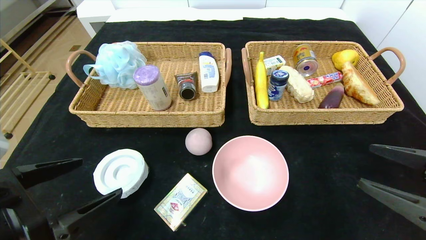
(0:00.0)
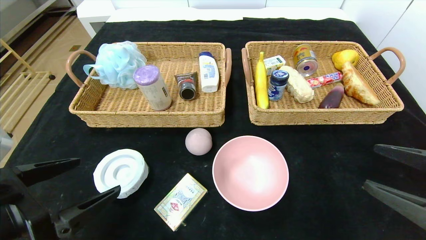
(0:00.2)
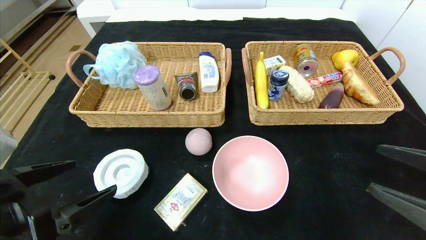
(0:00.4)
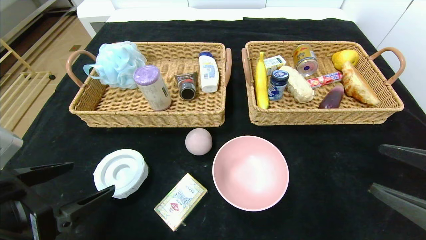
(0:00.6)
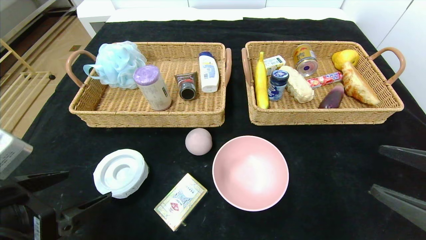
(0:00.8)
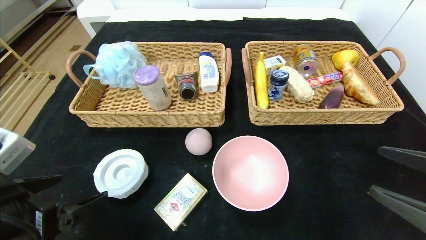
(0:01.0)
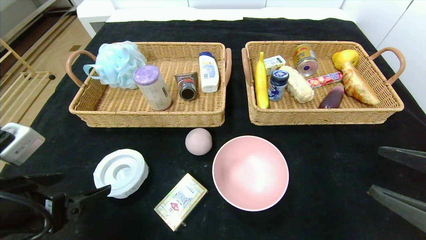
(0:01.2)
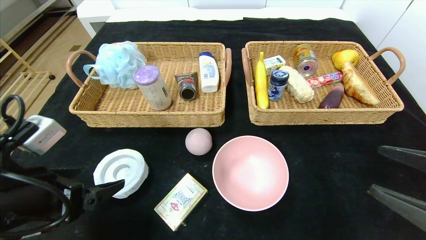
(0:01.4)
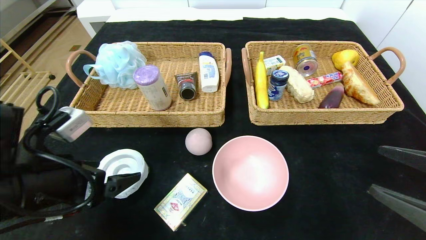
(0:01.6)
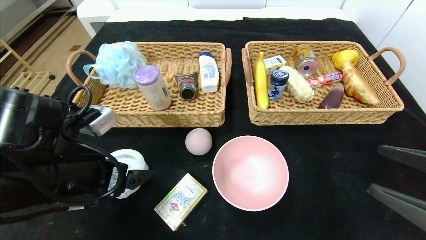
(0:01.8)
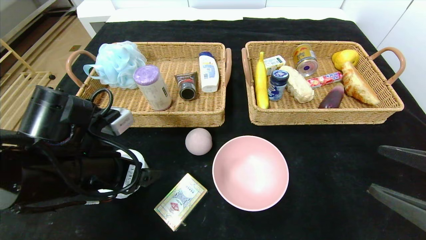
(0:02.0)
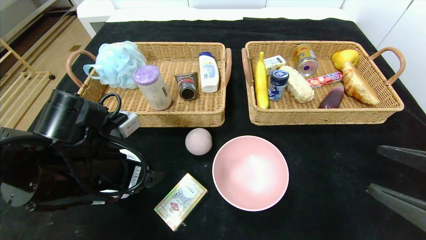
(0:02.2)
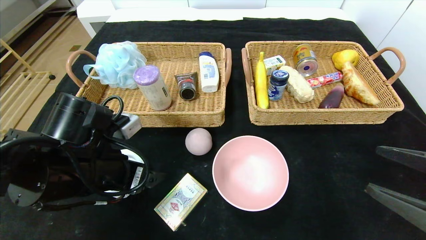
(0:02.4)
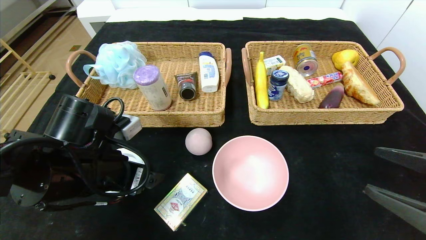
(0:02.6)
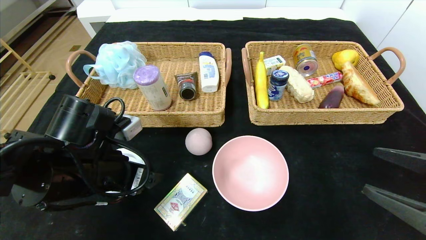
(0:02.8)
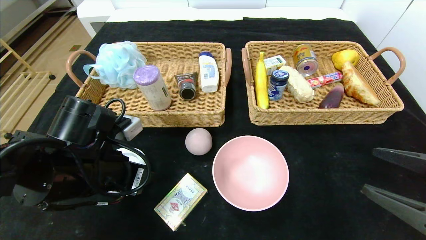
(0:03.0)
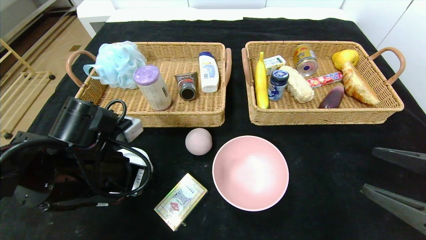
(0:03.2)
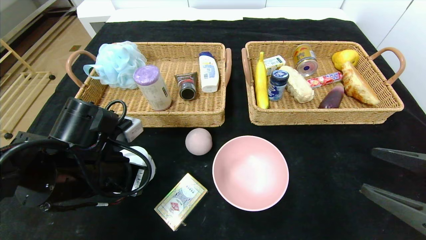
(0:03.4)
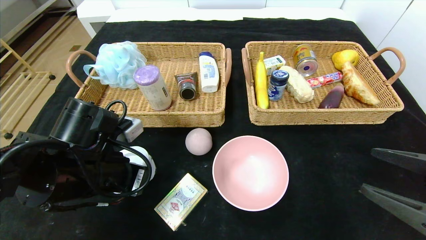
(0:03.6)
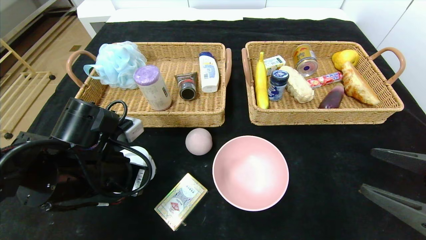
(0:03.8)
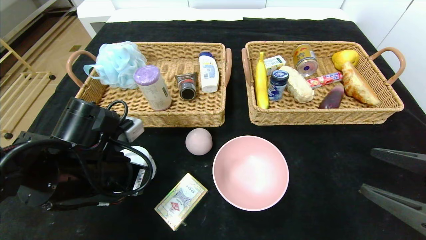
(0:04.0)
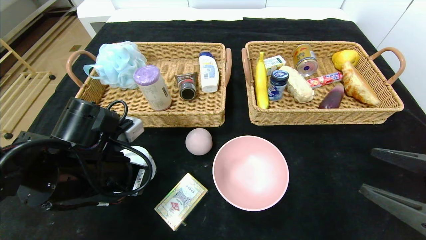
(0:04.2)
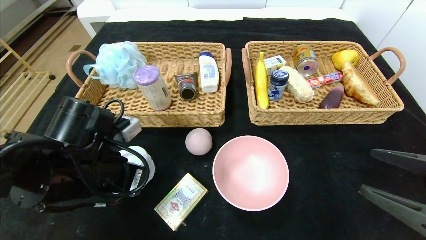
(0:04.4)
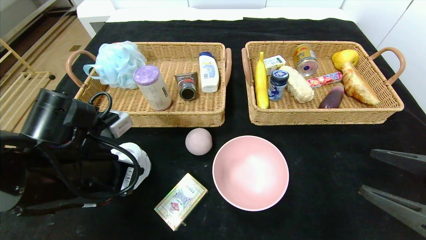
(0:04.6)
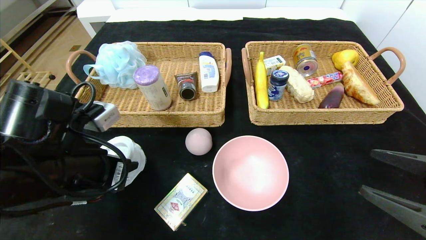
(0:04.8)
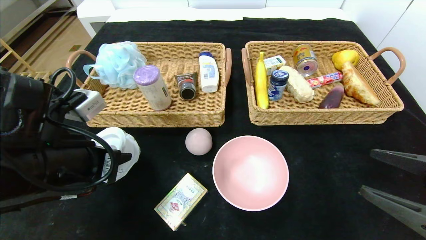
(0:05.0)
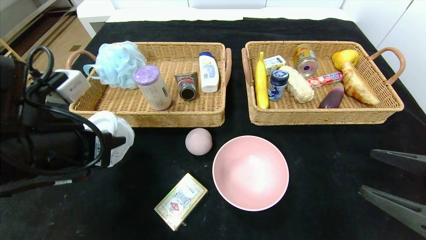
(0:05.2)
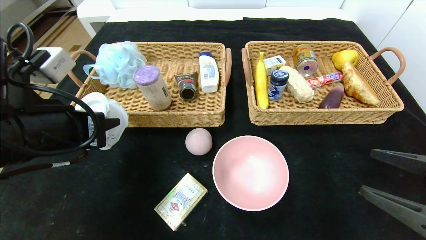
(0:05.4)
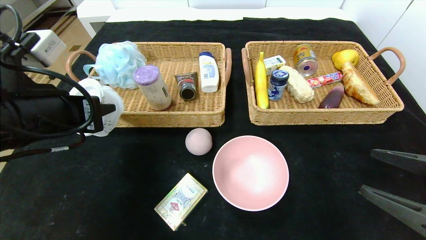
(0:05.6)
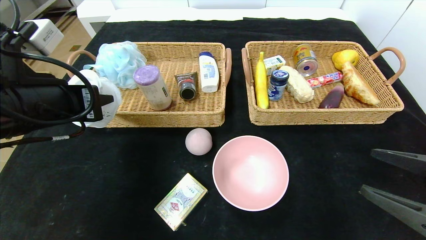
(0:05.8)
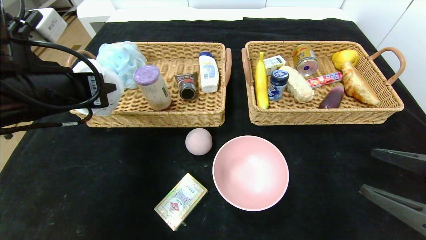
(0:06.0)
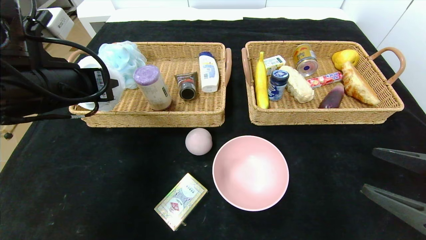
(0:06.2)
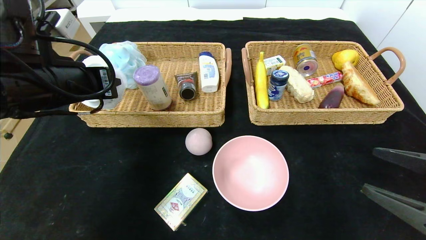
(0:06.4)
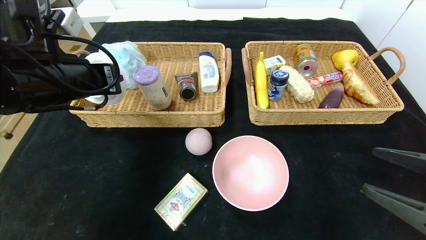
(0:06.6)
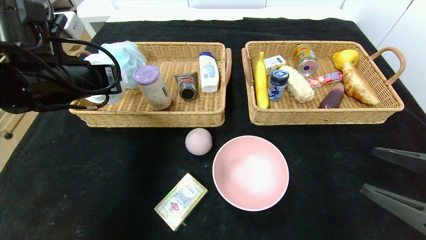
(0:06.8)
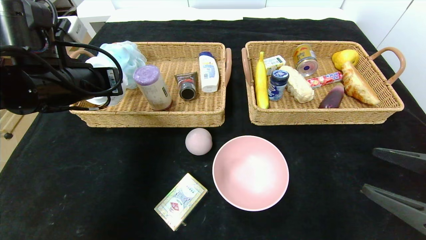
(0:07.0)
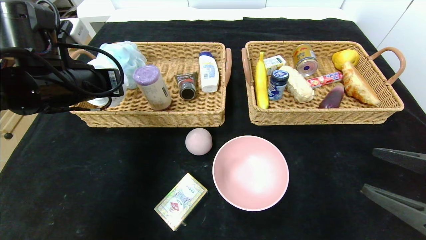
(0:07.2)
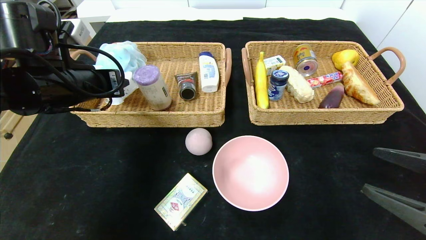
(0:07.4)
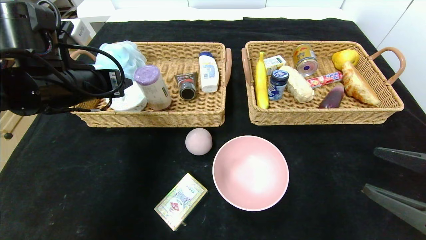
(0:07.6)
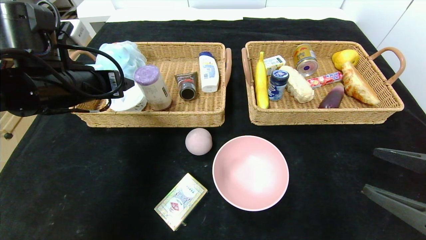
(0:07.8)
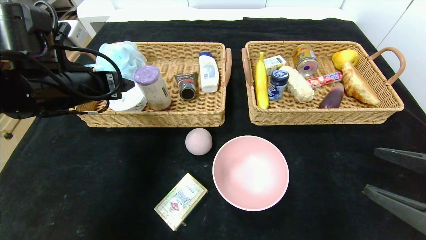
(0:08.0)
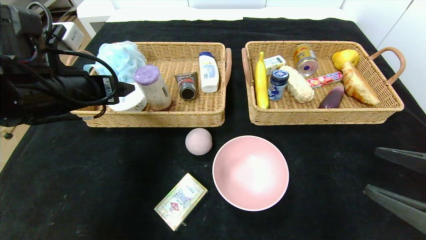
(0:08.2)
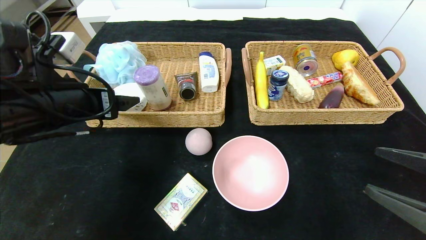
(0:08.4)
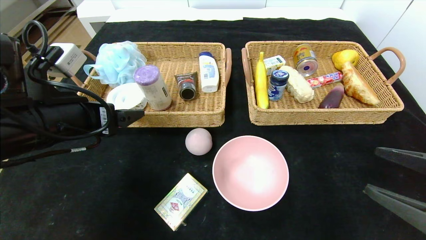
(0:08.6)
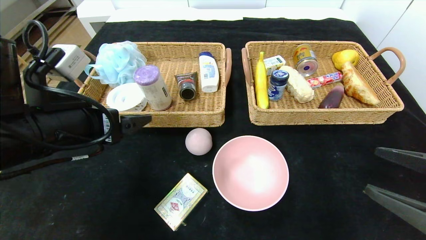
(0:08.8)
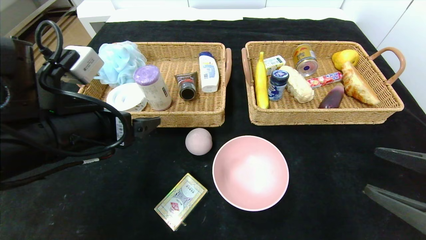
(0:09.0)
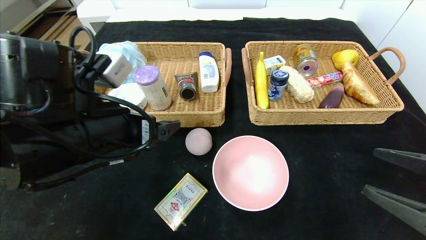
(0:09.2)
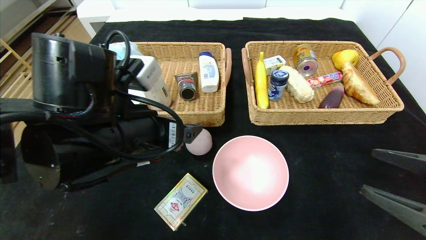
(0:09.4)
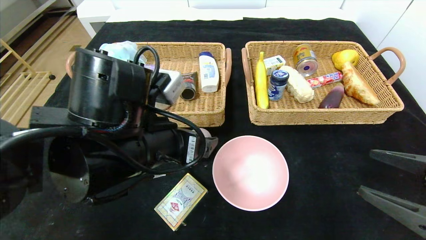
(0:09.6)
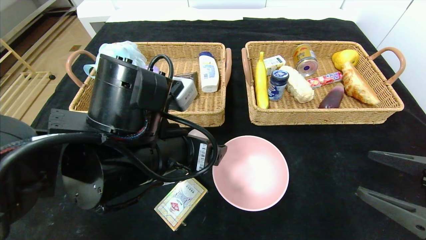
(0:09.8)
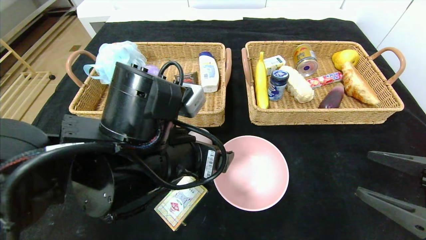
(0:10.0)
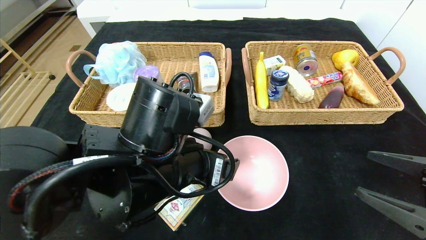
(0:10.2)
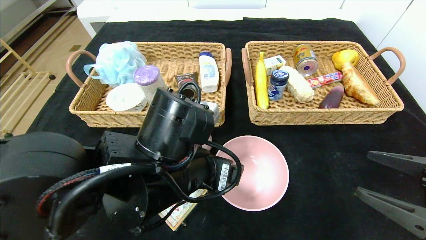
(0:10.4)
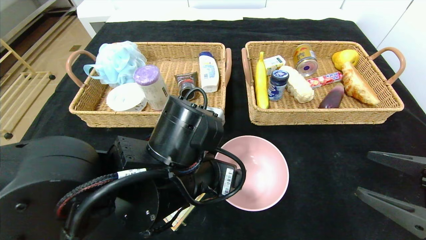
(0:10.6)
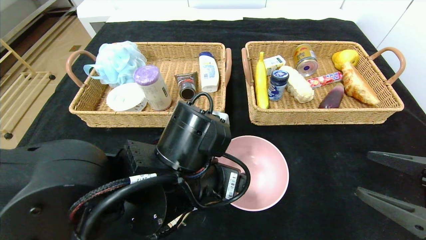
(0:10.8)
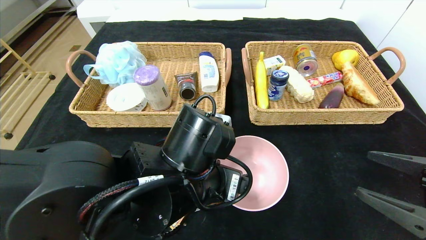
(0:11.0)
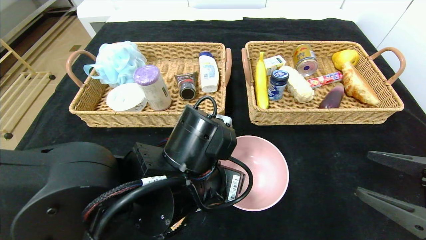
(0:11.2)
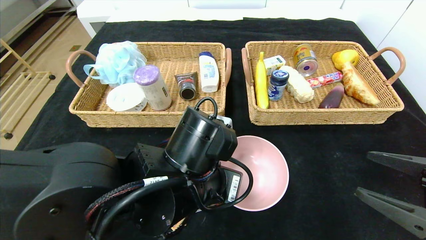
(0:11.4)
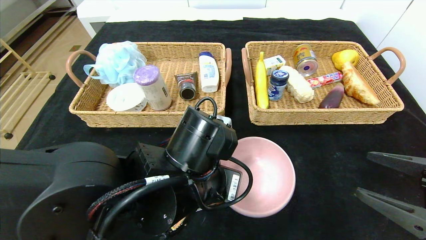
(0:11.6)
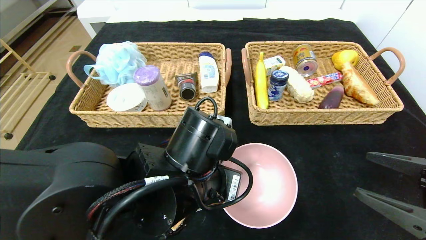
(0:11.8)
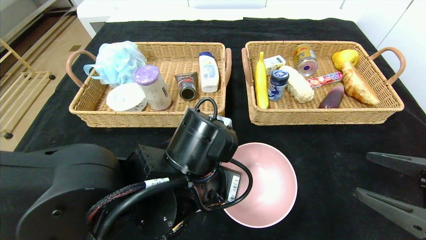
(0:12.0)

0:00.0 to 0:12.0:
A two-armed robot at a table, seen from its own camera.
Step, 0:00.0 to 0:07.6: Grasp the tape and put it in the left basket.
0:00.0 to 0:01.6: The left gripper goes roughly 5 cm forward.
0:01.6 to 0:03.0: The left gripper ends up some 5 cm from where it was, and closes.
0:03.0 to 0:04.4: The left gripper closes up.
0:04.4 to 0:06.0: The left gripper goes approximately 10 cm upward.
0:06.0 to 0:07.6: The left gripper heads forward, covering about 5 cm, and opens its fingers.
0:07.6 to 0:09.0: The left gripper travels backward by about 10 cm.
0:09.0 to 0:10.4: The left gripper heads to the right, covering roughly 15 cm.
0:10.4 to 0:12.0: The left gripper closes.

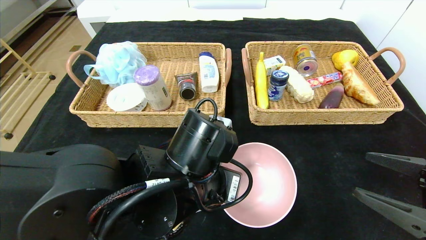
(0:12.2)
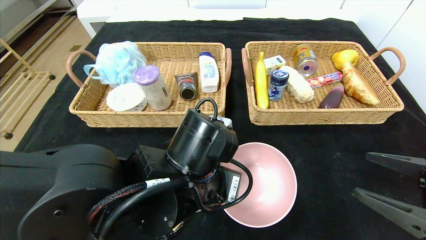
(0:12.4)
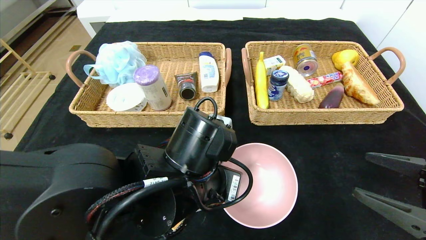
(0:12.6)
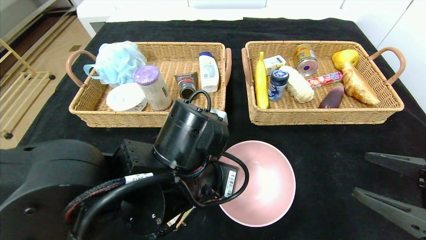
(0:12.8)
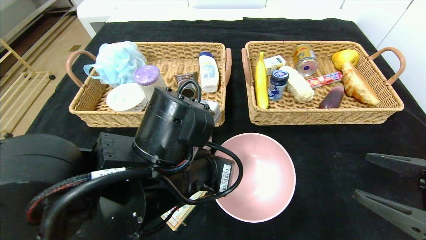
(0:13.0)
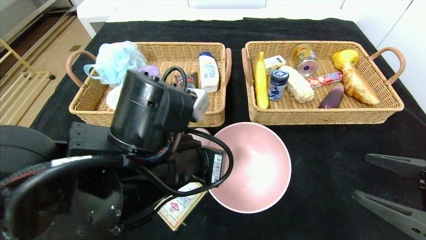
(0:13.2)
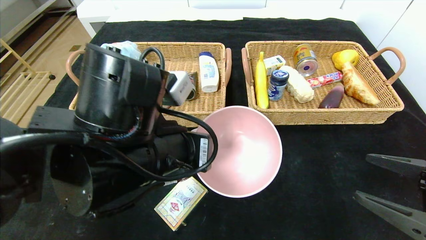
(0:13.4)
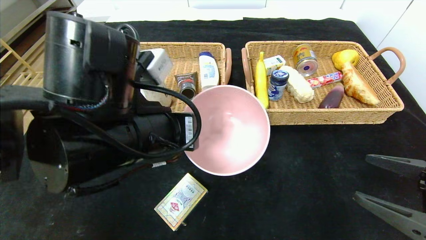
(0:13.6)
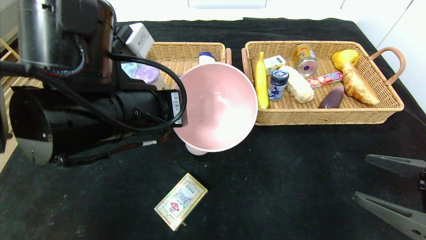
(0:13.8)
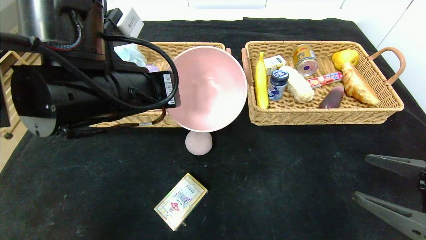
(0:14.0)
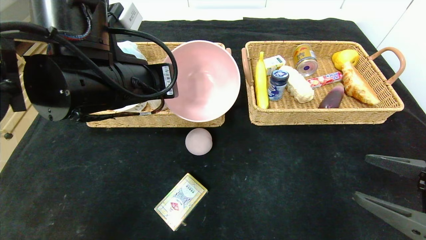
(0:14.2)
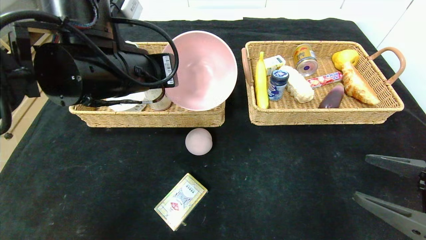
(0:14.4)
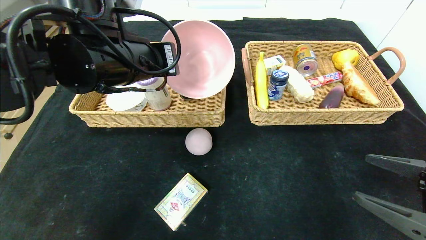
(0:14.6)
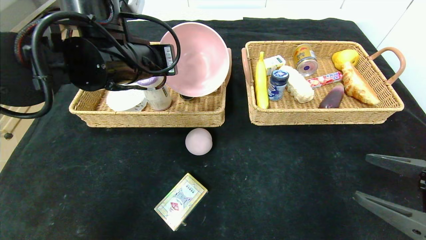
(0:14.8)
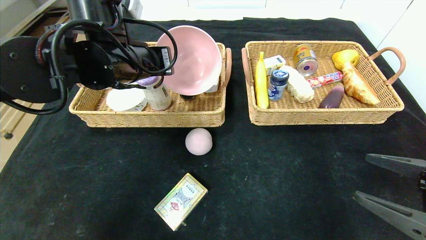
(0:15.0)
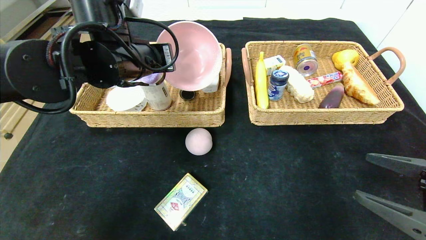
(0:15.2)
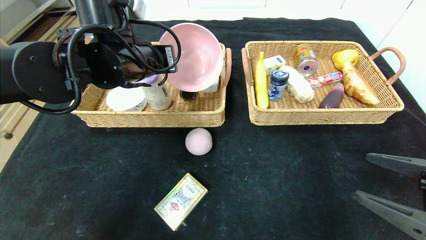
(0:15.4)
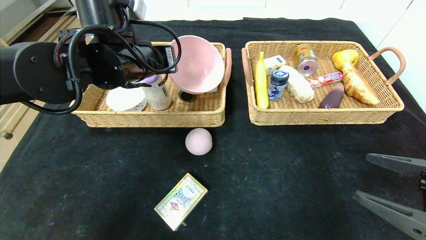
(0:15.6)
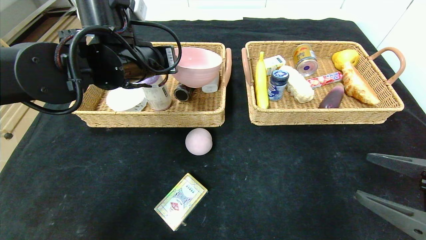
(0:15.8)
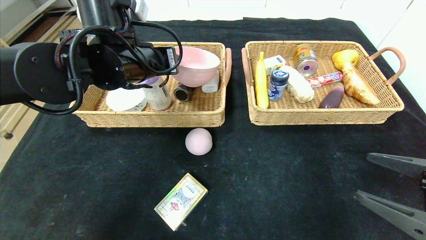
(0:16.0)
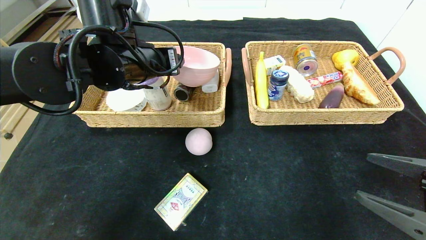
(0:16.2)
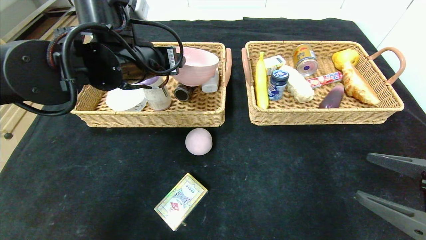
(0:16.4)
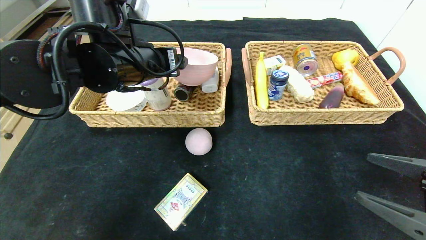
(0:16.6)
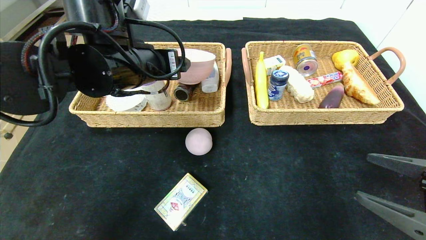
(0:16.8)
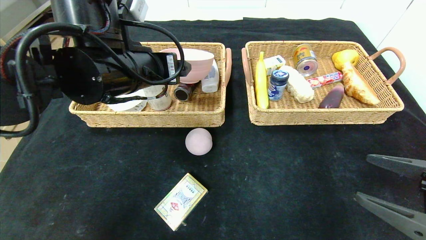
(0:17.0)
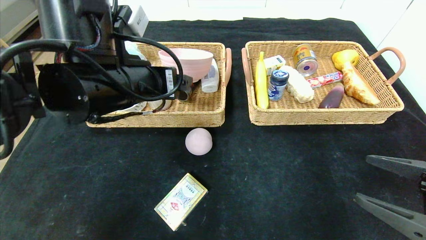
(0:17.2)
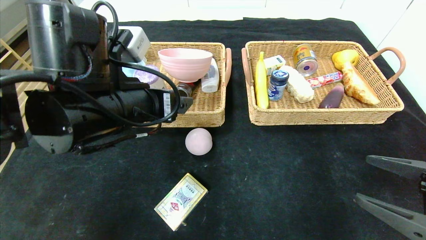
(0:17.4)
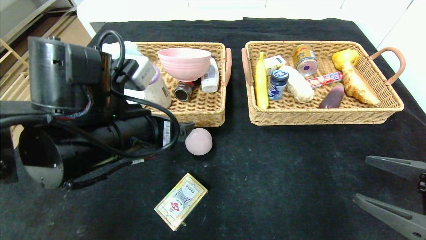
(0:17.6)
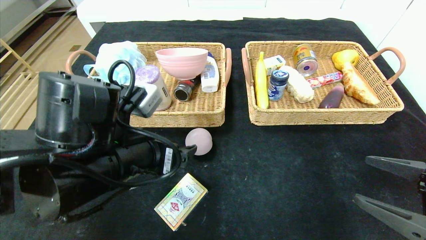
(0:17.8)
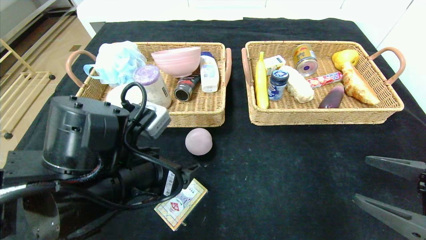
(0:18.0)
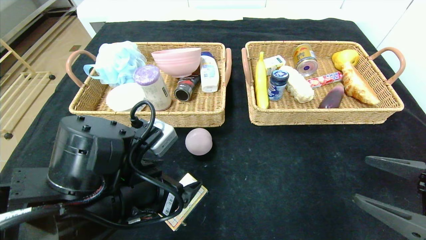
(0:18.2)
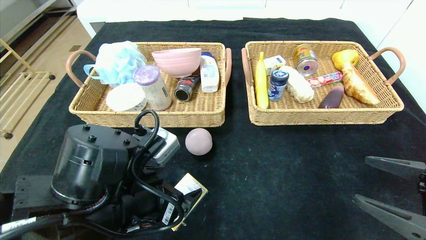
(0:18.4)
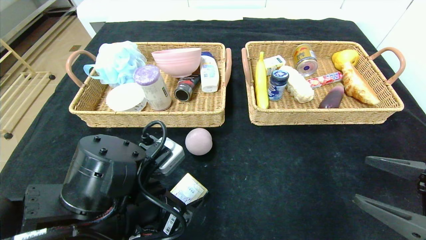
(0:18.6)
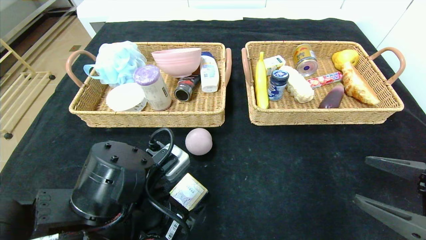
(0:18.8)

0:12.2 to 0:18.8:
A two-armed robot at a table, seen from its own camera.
Step, 0:12.2 to 0:15.6: Grasp the pink bowl and put it in the left basket.
0:12.2 to 0:13.8: The left gripper heads upward and to the left, covering approximately 15 cm.
0:13.8 to 0:15.4: The left gripper travels forward by approximately 10 cm.
0:15.4 to 0:17.2: The left gripper moves backward, some 10 cm, and opens its fingers.
0:17.2 to 0:18.8: The left gripper is displaced downward and backward by approximately 15 cm.
